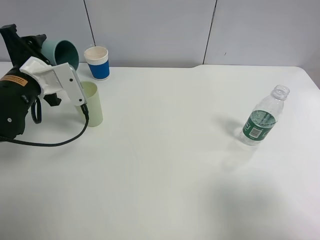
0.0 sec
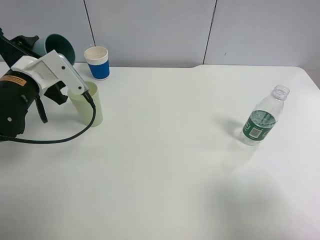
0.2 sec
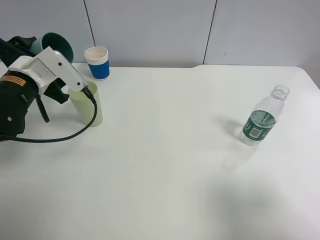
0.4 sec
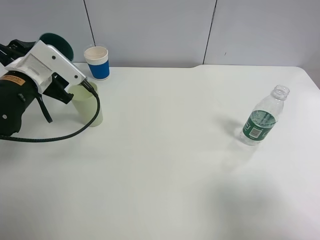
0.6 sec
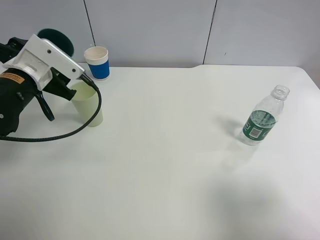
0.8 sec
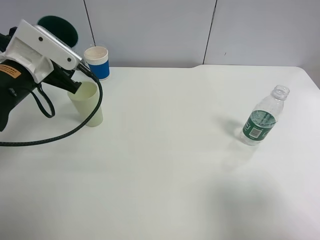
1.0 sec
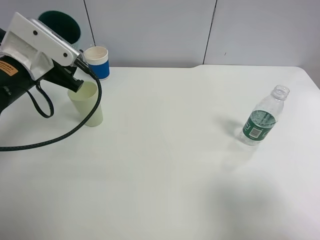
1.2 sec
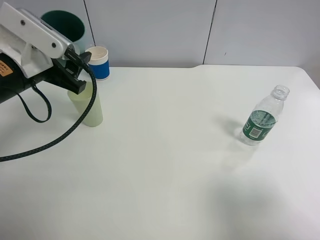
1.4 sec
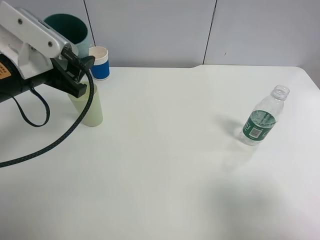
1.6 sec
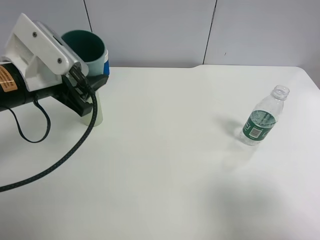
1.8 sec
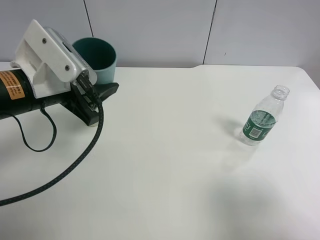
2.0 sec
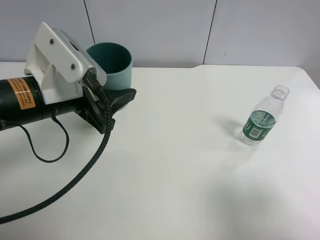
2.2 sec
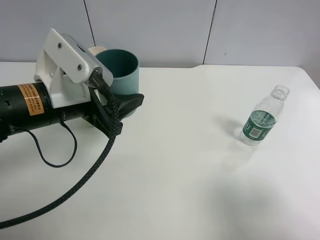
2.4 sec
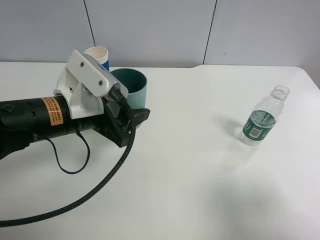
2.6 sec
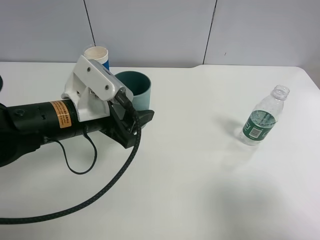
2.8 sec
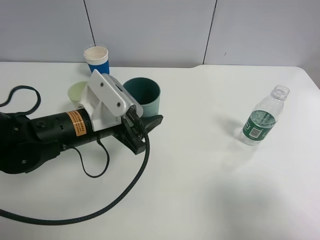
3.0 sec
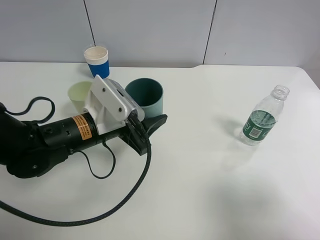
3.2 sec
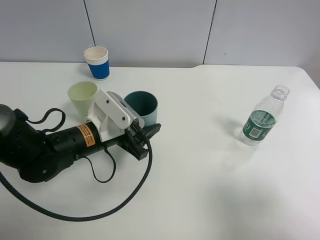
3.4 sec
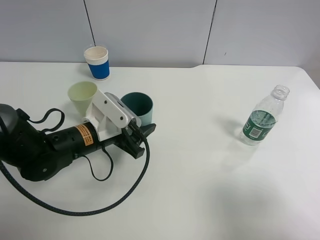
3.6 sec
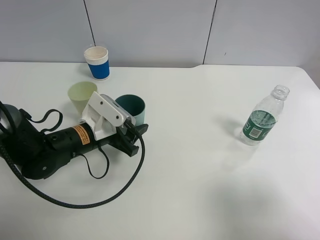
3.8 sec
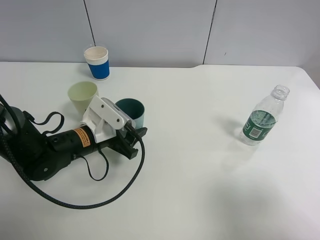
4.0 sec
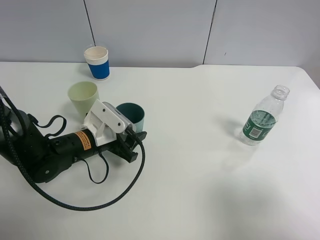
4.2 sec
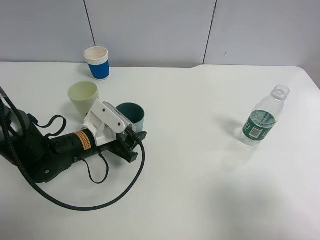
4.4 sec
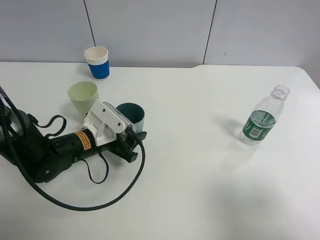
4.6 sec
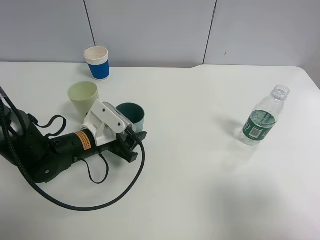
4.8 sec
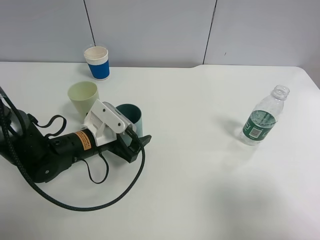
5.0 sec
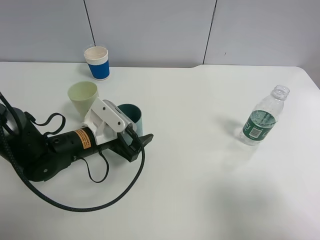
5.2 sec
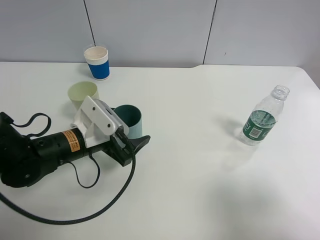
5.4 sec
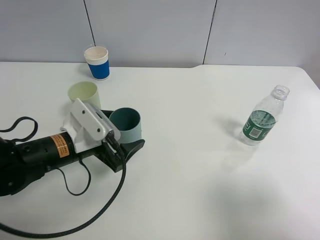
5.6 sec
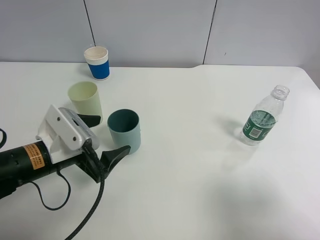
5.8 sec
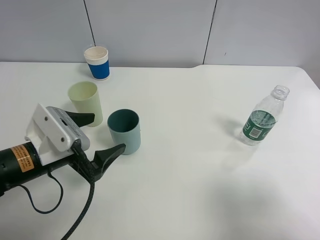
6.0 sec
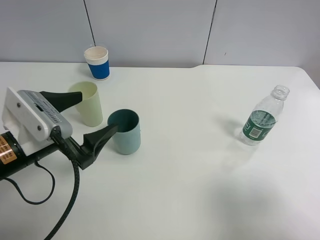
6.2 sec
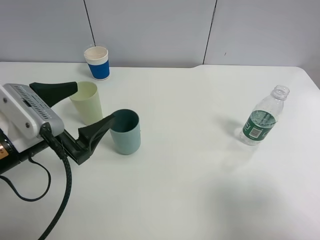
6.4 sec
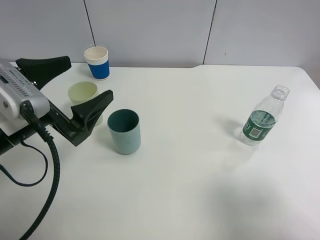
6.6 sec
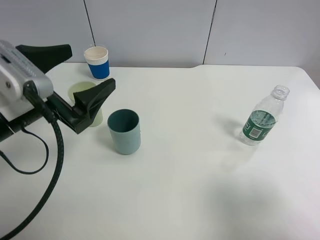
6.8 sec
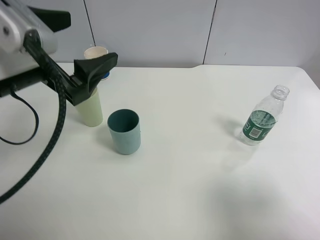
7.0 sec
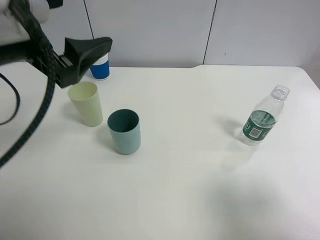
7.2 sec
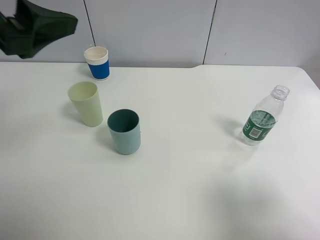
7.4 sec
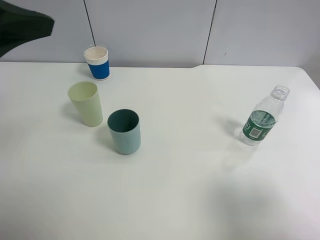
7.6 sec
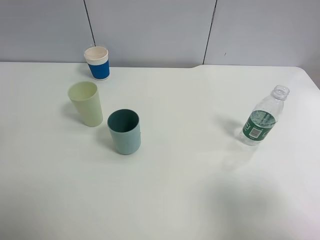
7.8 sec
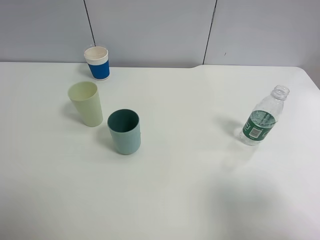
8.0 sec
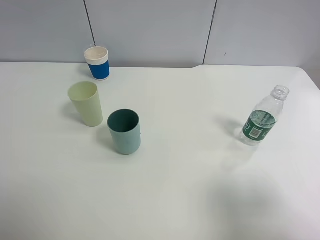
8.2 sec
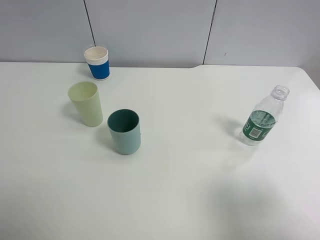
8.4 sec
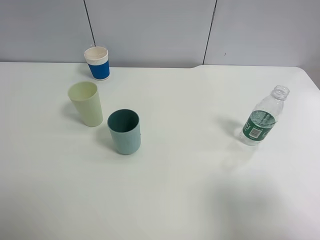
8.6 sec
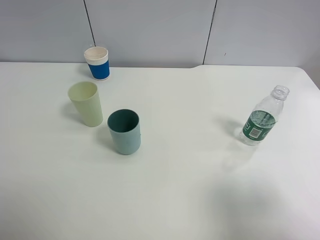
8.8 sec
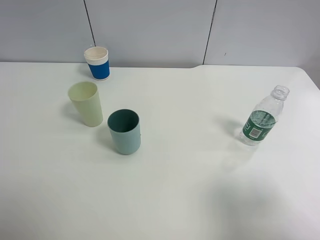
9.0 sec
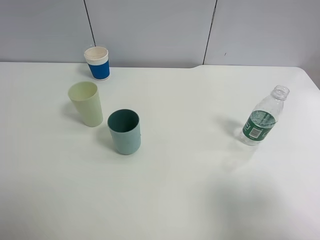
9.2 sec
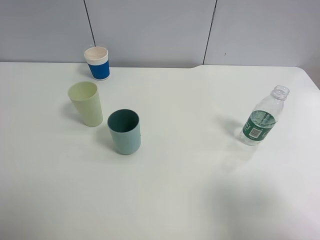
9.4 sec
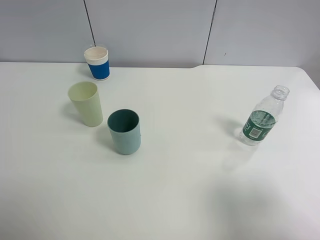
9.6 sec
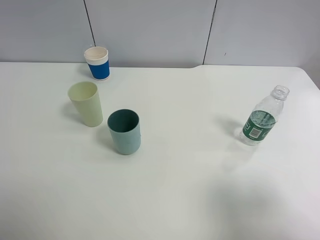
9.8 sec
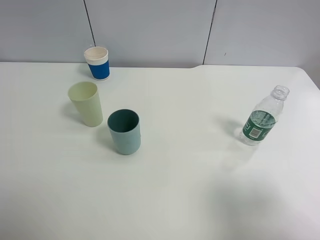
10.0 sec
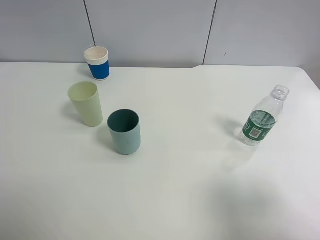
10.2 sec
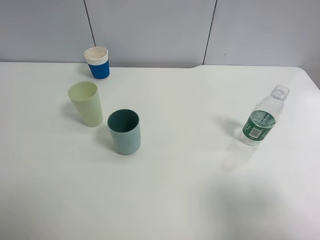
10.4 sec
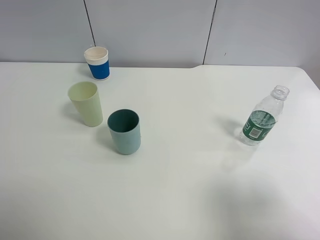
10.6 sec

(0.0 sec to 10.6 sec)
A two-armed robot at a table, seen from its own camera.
Task of the whole recording: use a clamp to hold the bottle of the drink, pour the beverage into a random cup, then clamp the cup containing the drink and pour the drink into another random cup.
Step, 0.8 sec - 5.0 sec: Place the blue plastic cup on the table with left gripper.
0.0 sec - 1.6 sec: The left gripper moves upward, some 5 cm.
1.6 sec - 3.0 sec: The left gripper goes roughly 15 cm to the right and downward.
3.0 sec - 4.6 sec: The left gripper is displaced downward by roughly 10 cm.
4.6 sec - 6.0 sec: The left gripper goes approximately 10 cm backward and upward, and opens its fingers.
6.0 sec - 7.6 sec: The left gripper travels upward by roughly 25 cm.
7.6 sec - 9.0 sec: The left gripper goes approximately 25 cm backward and to the left.

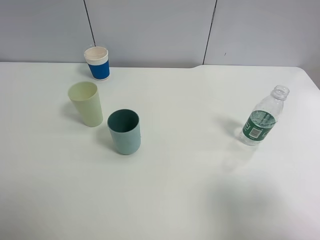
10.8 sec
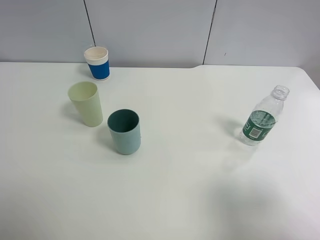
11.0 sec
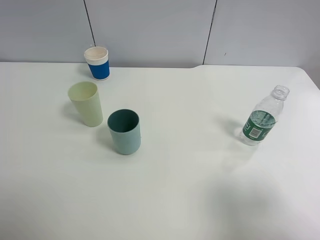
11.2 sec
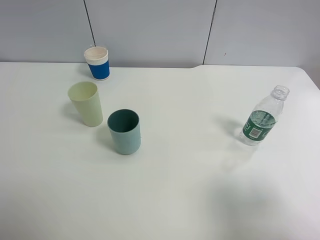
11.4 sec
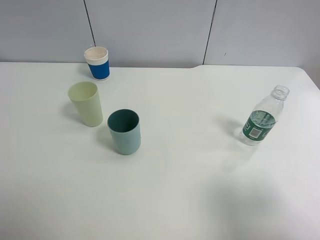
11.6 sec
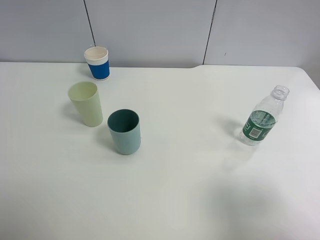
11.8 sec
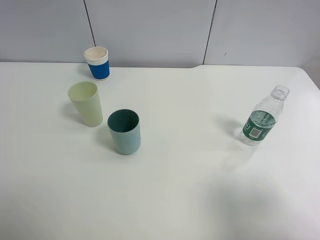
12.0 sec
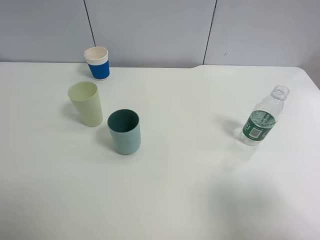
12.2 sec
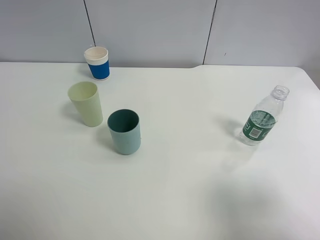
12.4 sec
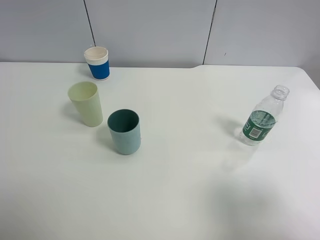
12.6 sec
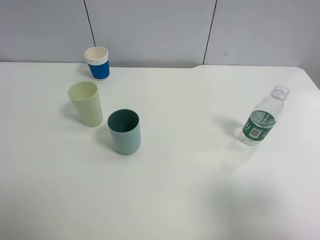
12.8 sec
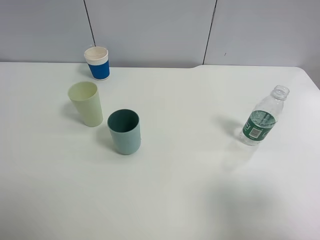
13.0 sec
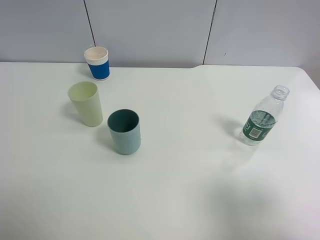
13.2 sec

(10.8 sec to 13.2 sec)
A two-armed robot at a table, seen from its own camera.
Task of the whole recording: use a clamp to hold the bottle of the drink, pour the beverage into a random cup, then clamp the cup containing the drink and pour the drink into another random cup.
10.8 sec - 13.2 sec: The two grippers keep their place.

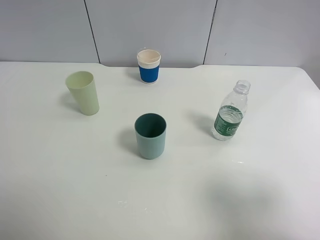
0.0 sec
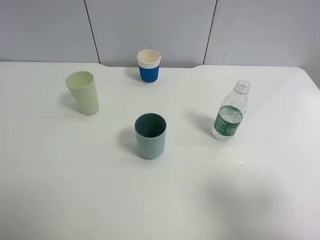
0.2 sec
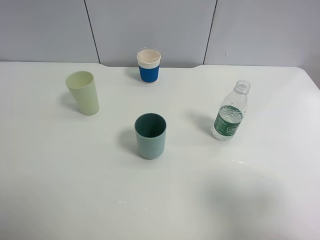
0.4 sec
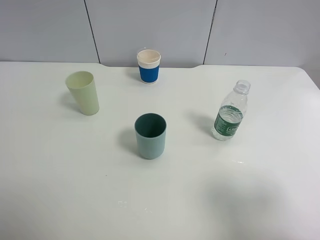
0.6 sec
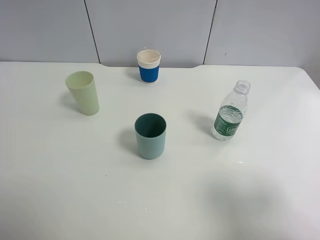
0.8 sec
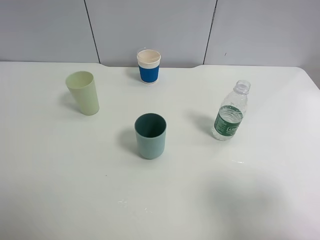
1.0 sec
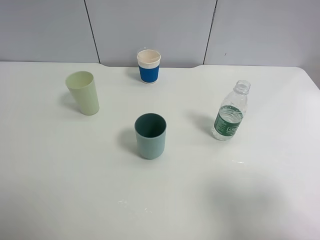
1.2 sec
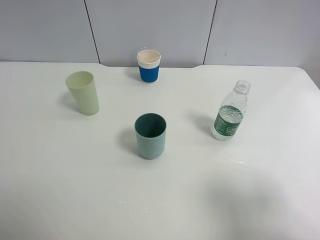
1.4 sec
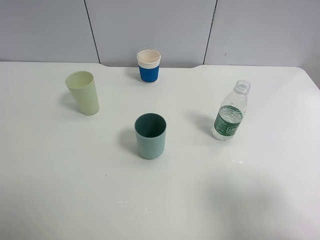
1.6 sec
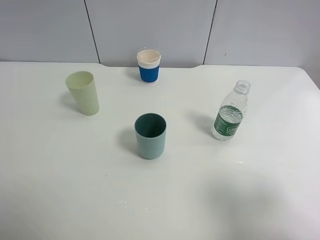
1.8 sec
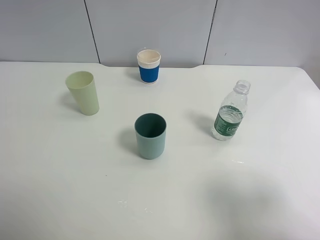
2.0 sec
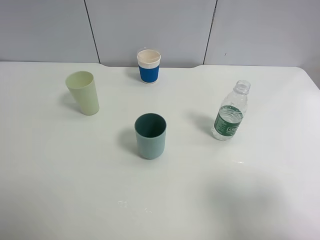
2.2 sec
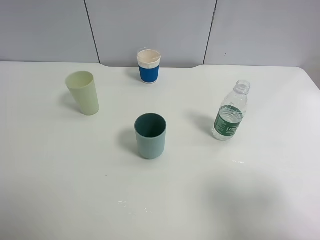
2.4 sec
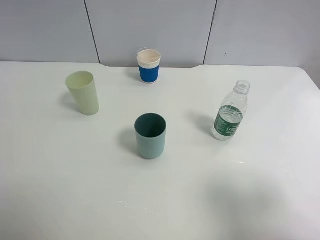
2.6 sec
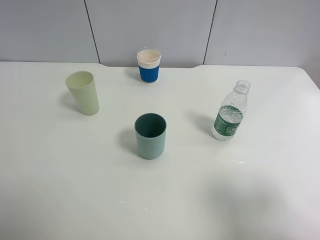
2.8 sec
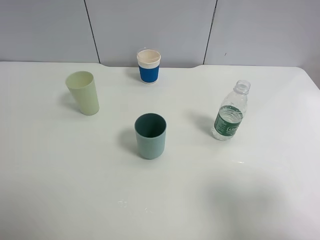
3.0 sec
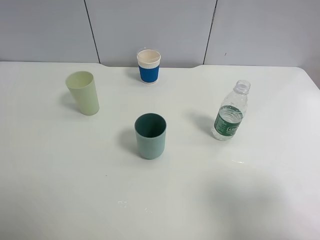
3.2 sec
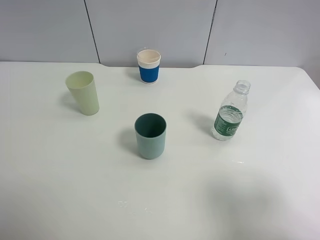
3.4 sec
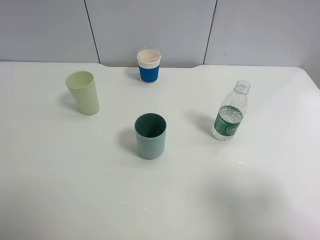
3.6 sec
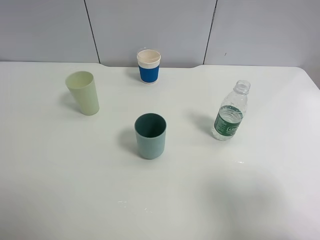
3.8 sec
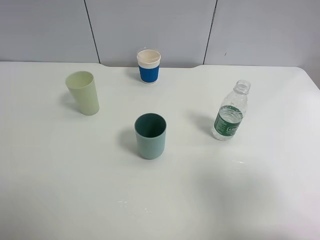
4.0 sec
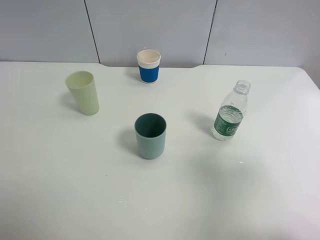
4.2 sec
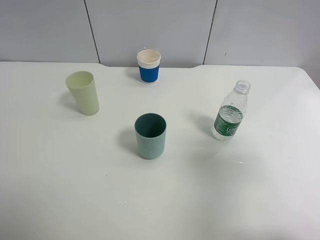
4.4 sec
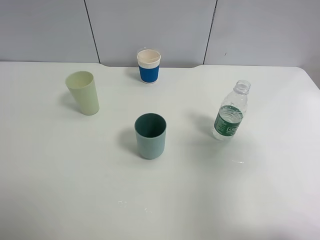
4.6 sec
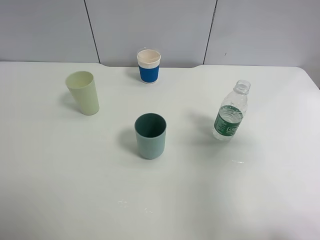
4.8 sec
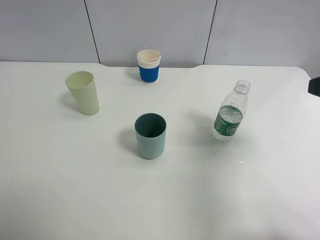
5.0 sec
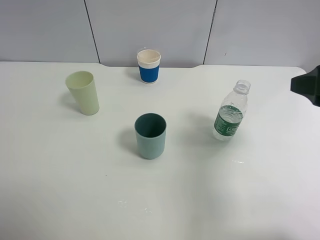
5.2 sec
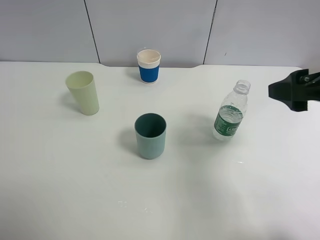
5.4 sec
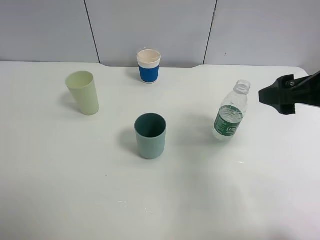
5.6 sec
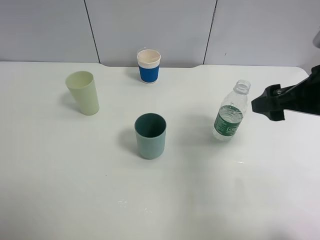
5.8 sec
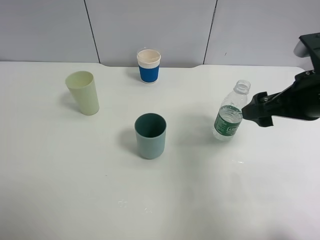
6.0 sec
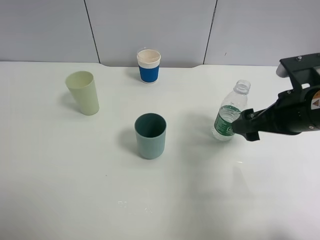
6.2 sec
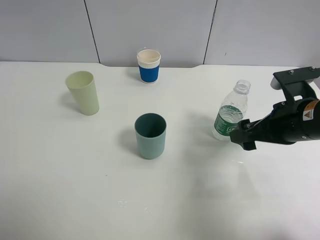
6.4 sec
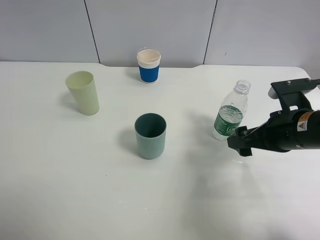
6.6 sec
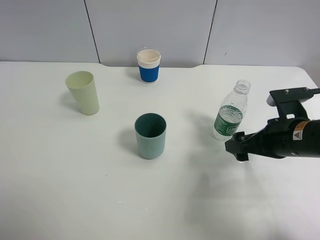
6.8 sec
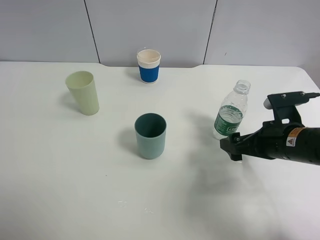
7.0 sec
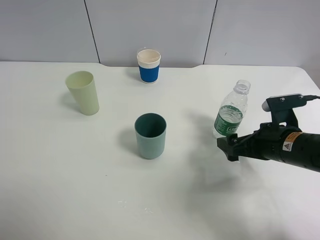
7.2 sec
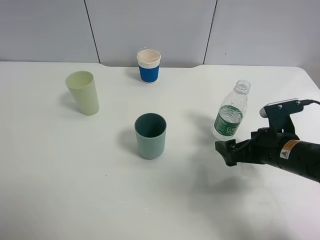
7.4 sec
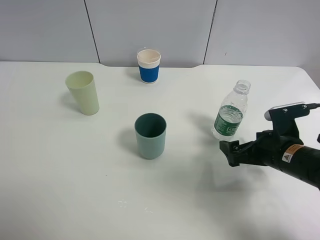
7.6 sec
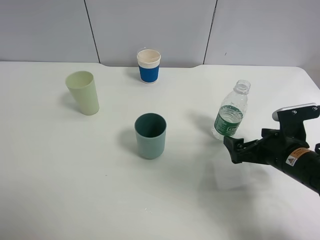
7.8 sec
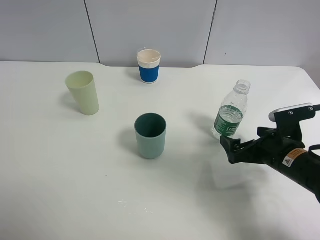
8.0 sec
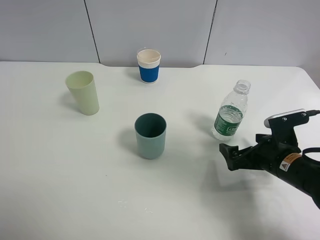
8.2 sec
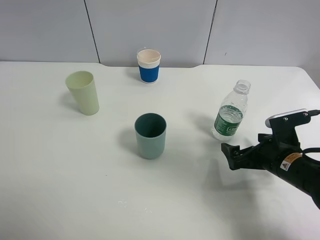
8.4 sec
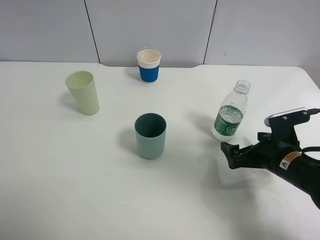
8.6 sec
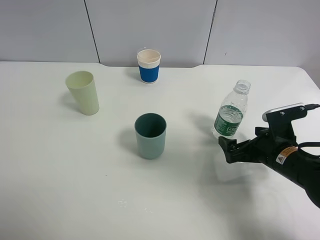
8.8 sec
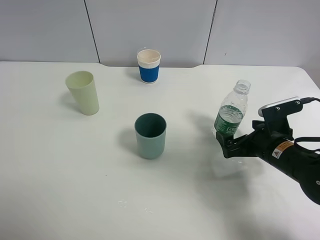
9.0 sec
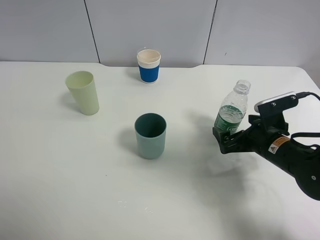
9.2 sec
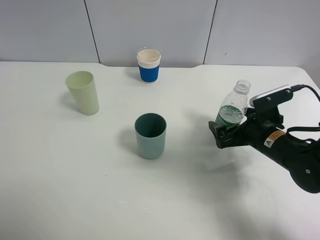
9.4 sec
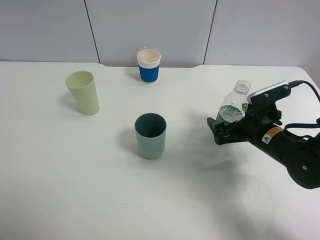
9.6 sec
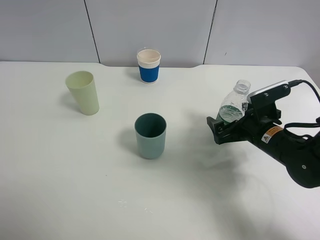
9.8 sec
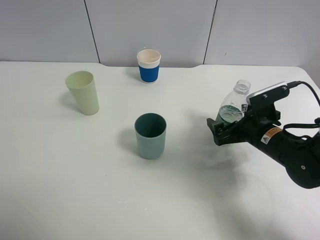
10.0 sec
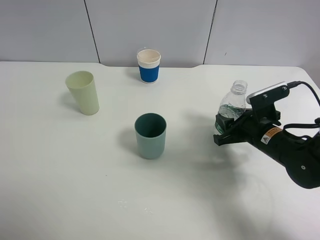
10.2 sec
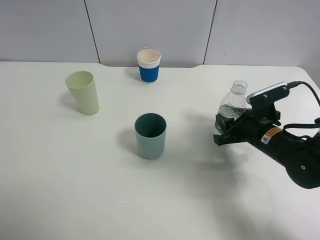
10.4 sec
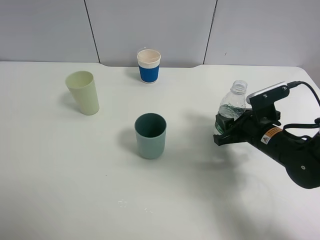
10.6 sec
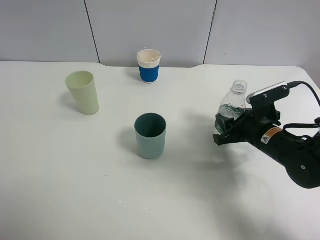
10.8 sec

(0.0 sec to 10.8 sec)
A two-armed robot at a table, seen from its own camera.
Task of the whole recording: use a clamp to hold the bottle of the drink, pour the beverage into a random cup, then clamp the cup containing the drink and pour the drink into another random cup.
0.0 sec - 3.0 sec: The two grippers keep their place.
3.0 sec - 4.6 sec: The right gripper moves forward, roughly 10 cm.
4.6 sec - 6.2 sec: The right gripper moves downward, forward and to the left, roughly 15 cm.
6.2 sec - 7.8 sec: The right gripper travels downward by roughly 10 cm.
7.8 sec - 9.2 sec: The grippers stay close to where they were, moving slightly.
9.2 sec - 10.8 sec: The right gripper closes.
